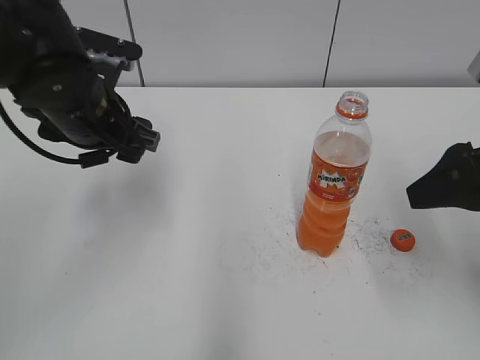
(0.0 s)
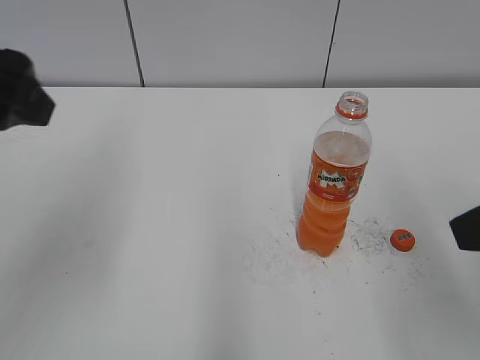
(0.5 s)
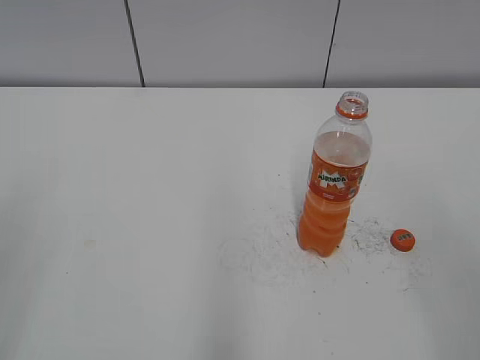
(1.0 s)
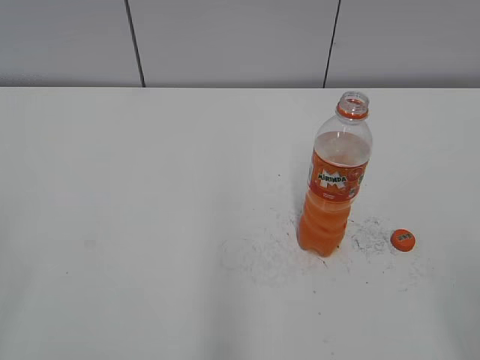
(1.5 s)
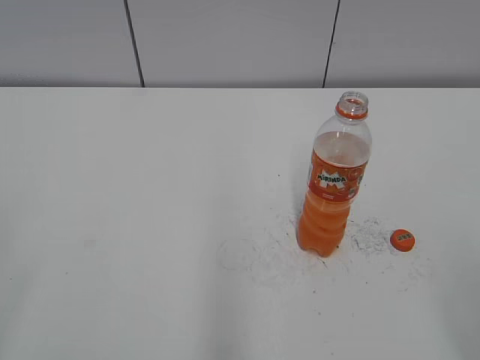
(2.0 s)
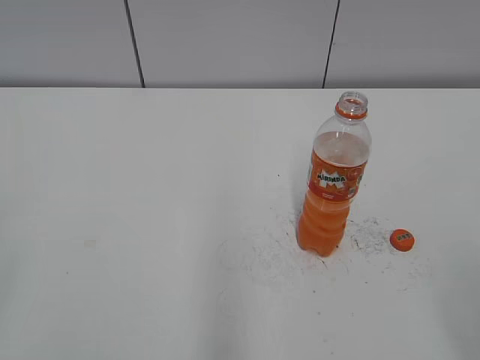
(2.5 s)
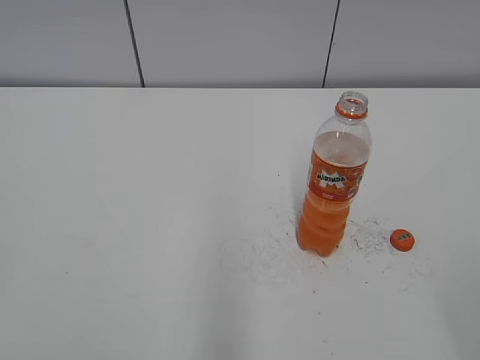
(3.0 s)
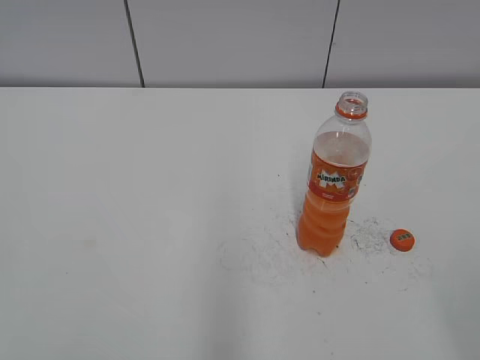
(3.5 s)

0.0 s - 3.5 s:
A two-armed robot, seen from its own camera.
0.0 s - 2.0 s: The right gripper shifts some 20 cm backward. The left gripper goes about 35 cm backward and to the left, and closes.
